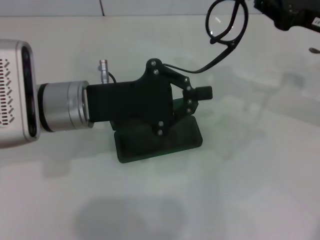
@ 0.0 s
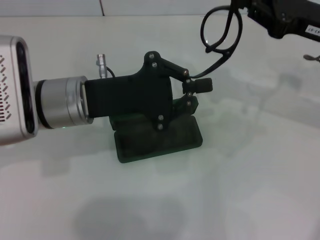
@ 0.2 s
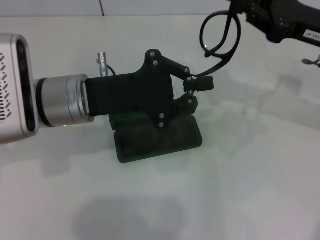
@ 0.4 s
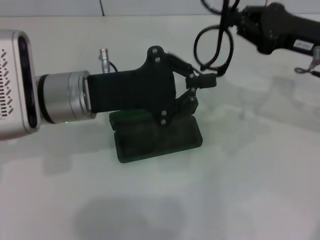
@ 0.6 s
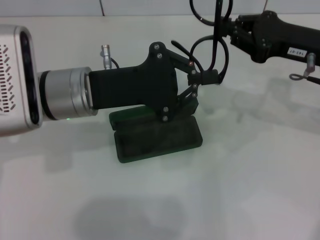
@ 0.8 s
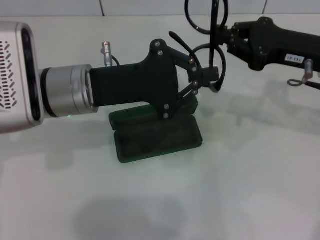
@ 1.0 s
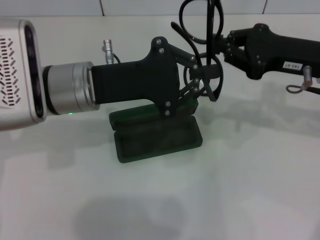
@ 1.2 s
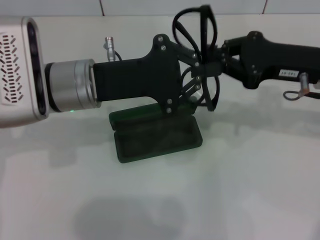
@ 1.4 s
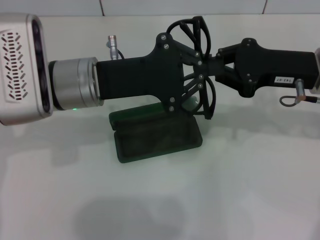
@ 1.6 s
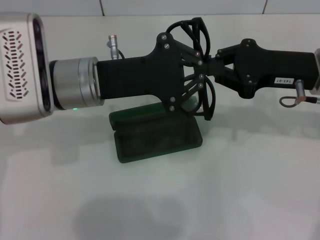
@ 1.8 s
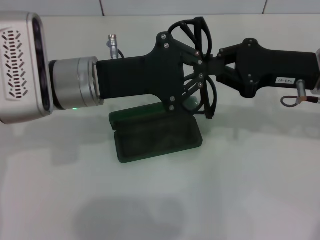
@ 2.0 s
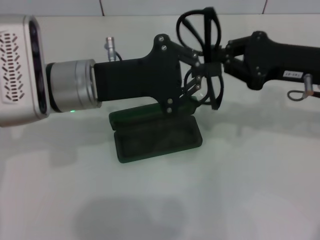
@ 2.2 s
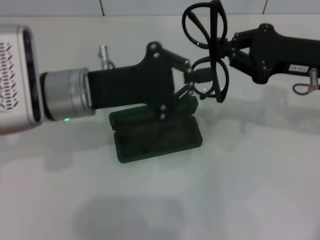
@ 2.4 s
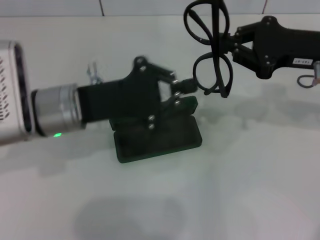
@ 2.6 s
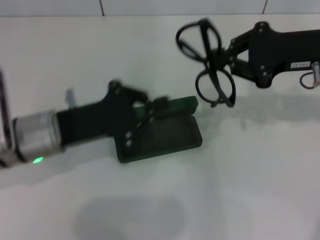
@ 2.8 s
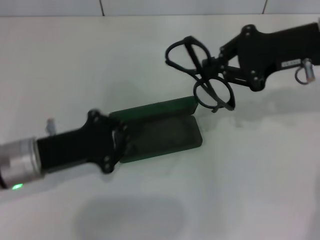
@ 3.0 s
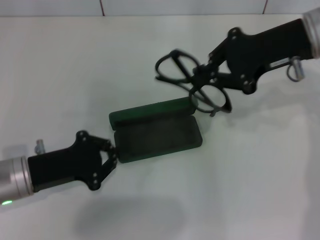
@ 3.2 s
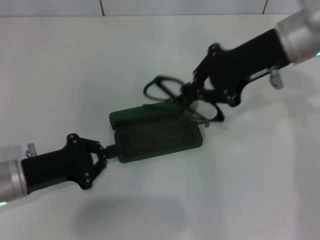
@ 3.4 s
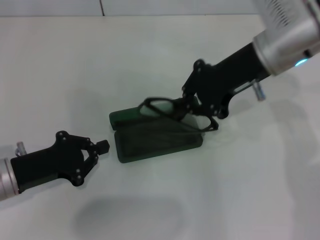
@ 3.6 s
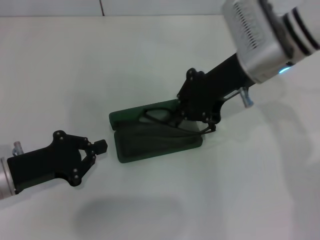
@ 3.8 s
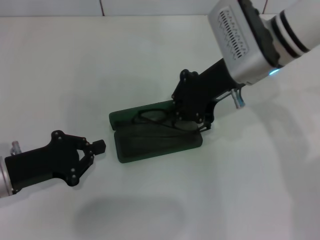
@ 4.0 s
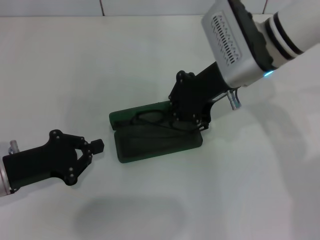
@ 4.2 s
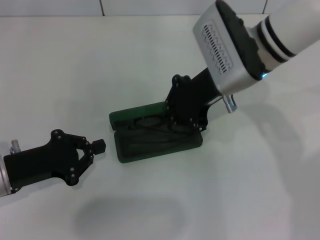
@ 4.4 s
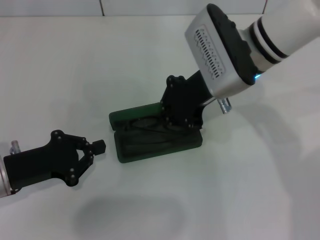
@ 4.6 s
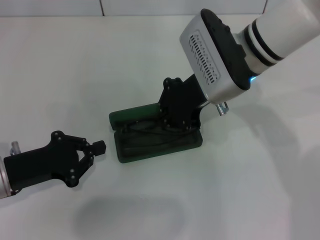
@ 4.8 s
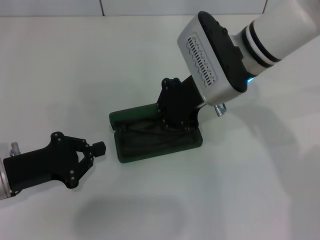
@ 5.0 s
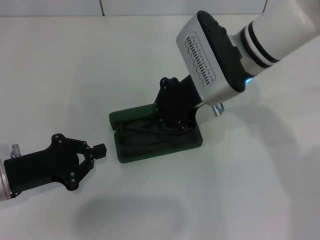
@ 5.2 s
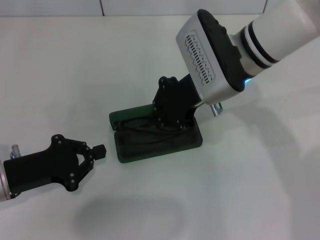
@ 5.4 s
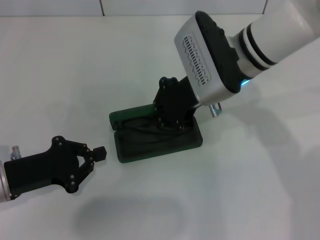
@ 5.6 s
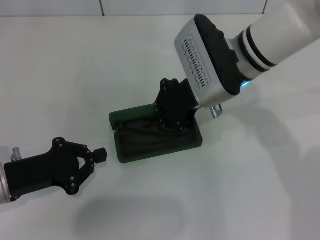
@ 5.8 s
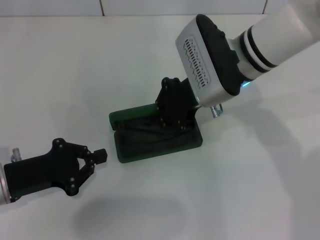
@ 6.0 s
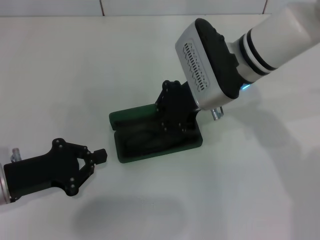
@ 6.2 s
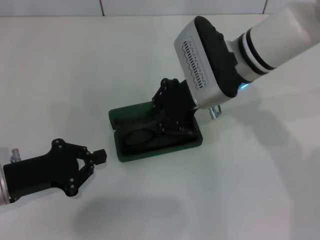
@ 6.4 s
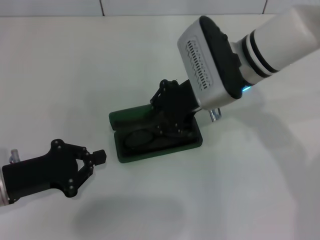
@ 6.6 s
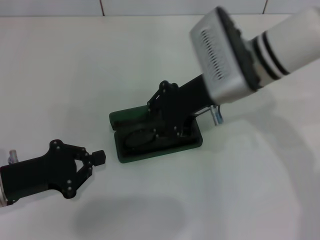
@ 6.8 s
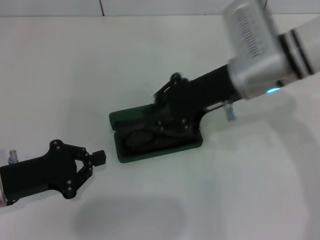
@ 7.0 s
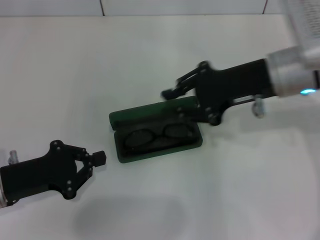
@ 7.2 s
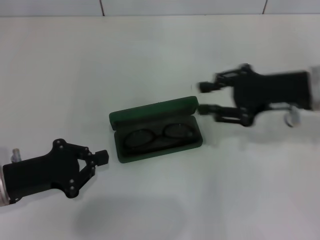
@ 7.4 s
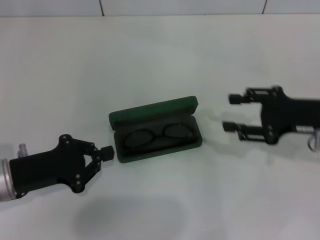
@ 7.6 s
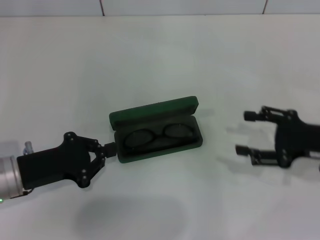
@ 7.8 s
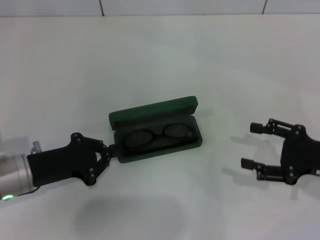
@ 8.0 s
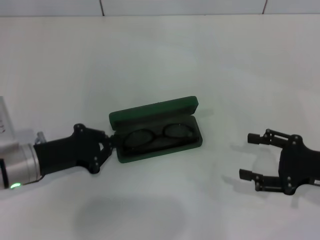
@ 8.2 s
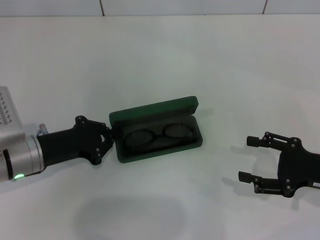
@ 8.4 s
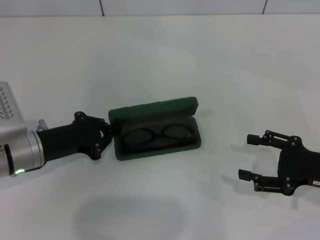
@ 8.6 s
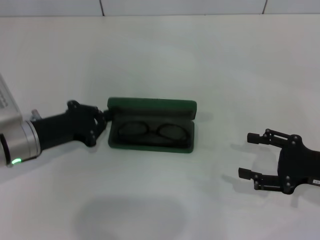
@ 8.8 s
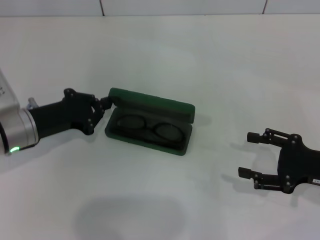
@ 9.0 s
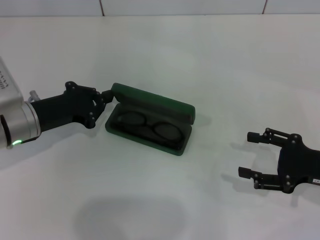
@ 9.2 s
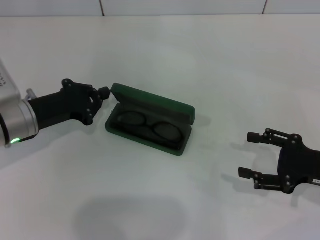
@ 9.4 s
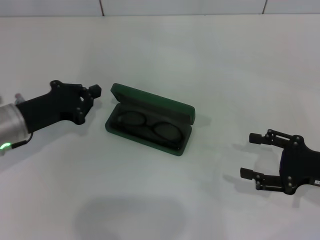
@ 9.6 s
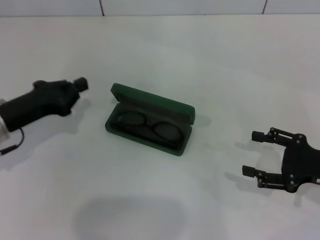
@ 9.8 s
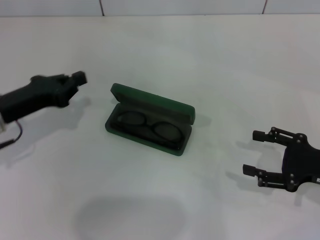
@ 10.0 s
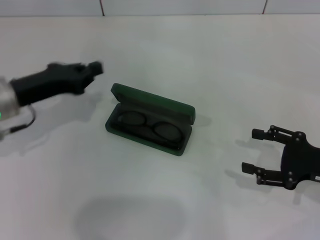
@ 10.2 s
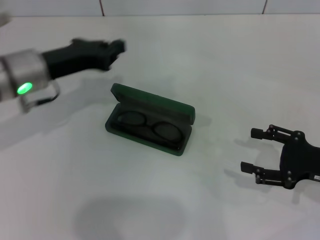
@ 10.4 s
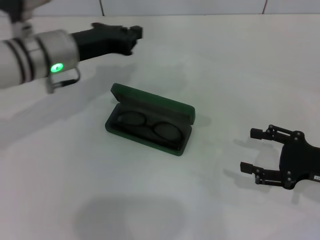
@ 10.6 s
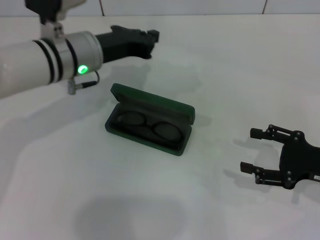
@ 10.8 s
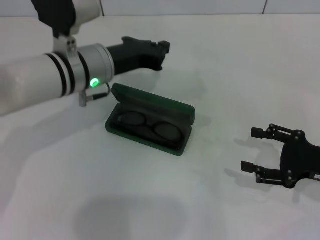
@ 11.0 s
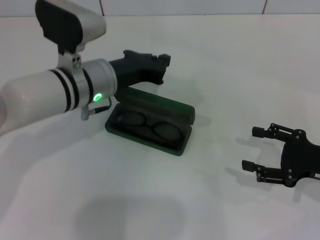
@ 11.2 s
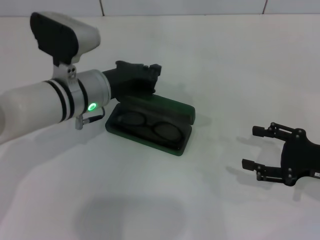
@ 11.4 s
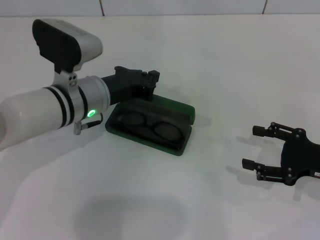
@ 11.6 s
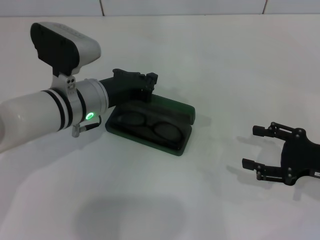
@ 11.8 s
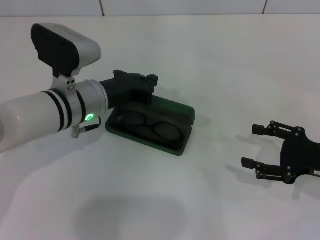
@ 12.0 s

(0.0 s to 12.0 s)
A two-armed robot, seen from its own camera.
Step, 0.0 s - 2.0 s: Fold the frame with your left hand.
Step, 2.2 s - 6.6 s: Put the glasses into the case with your right hand.
0.0 s - 1.6 s: The right gripper changes place by approximately 5 cm.
1.6 s - 3.0 s: The left gripper is displaced to the left, downward and backward by about 15 cm. Meanwhile the right gripper moves upward, some 5 cm.
3.0 s - 4.4 s: The right gripper heads to the left, covering approximately 10 cm. Meanwhile the left gripper shifts by some 5 cm.
4.4 s - 6.0 s: There are only small adjustments of the grippers.
6.0 s - 7.6 s: The right gripper heads to the right, covering approximately 20 cm.
7.6 s - 9.0 s: The right gripper travels backward and downward by some 10 cm, and opens. The left gripper moves forward, approximately 5 cm.
9.0 s - 10.4 s: The left gripper shifts roughly 10 cm upward.
10.4 s - 12.0 s: The left gripper travels to the right by roughly 10 cm.

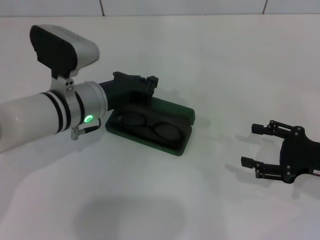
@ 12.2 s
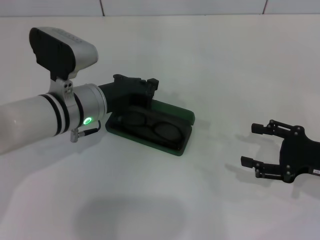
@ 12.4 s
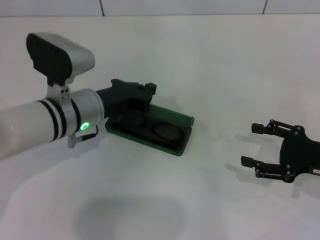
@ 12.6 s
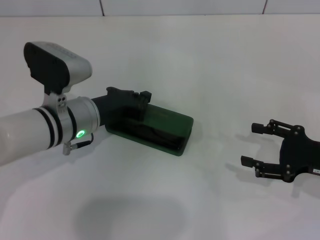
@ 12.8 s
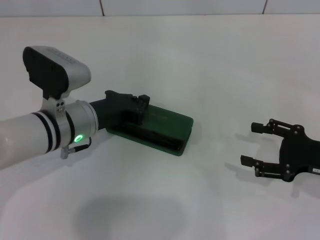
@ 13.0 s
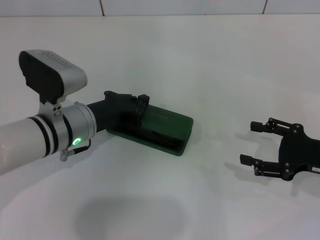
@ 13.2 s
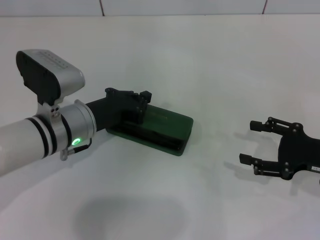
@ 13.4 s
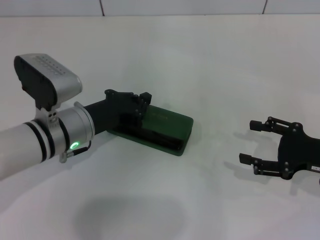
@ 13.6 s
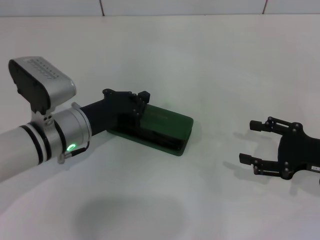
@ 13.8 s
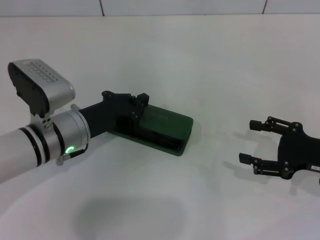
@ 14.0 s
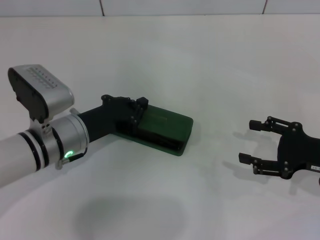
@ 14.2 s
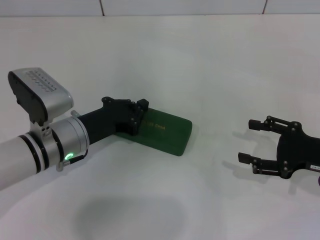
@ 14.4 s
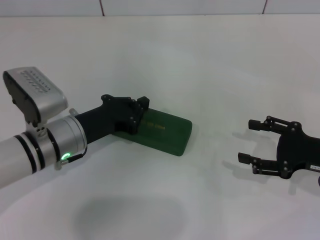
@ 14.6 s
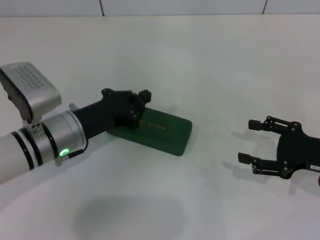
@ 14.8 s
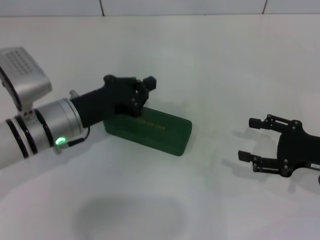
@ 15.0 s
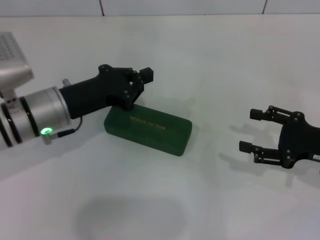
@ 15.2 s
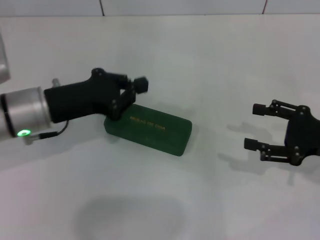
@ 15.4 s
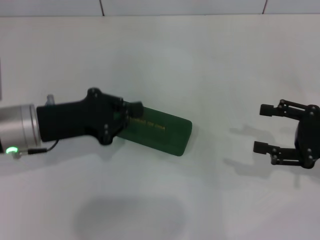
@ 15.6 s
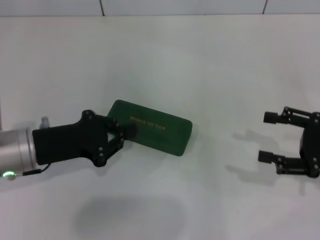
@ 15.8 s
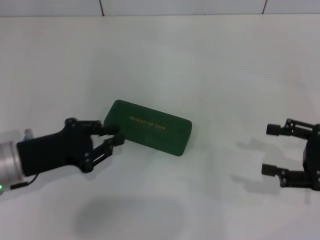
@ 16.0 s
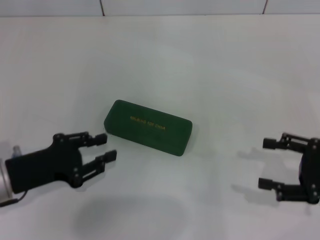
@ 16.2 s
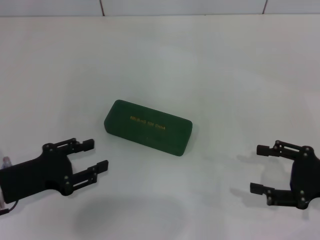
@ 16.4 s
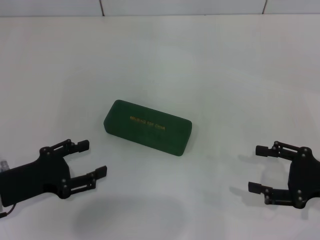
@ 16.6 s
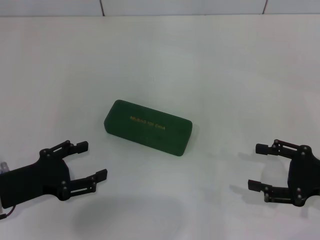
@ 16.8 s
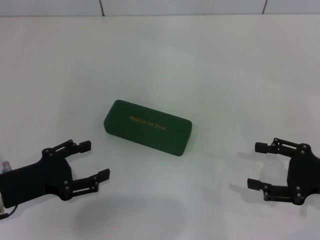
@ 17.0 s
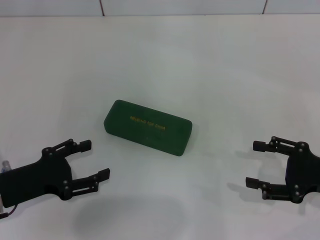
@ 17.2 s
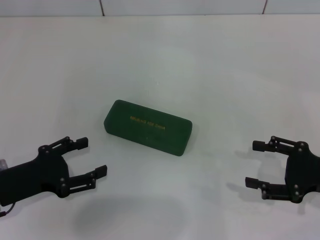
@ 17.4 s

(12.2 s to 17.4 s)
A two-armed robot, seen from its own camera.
Step, 12.2 s - 14.2 s: Close the glasses case with your left hand.
12.2 s - 14.0 s: The left gripper changes place by roughly 5 cm.
14.0 s - 15.6 s: The left gripper heads to the left, covering roughly 5 cm.
15.6 s - 17.4 s: The left gripper travels backward, to the left and downward by about 10 cm, and opens its fingers.
